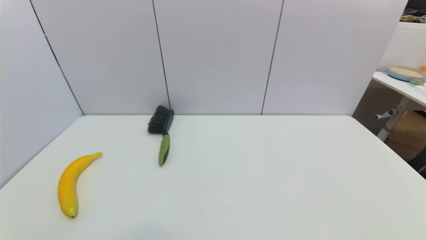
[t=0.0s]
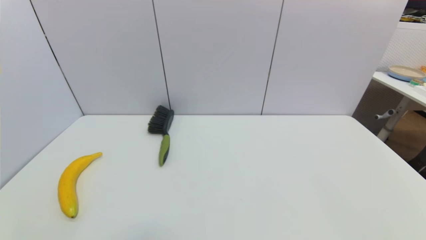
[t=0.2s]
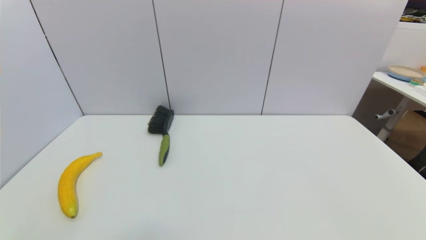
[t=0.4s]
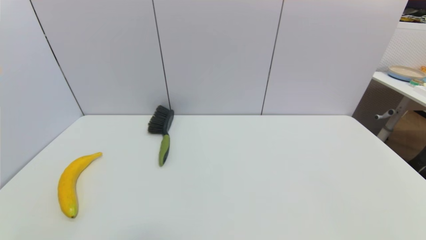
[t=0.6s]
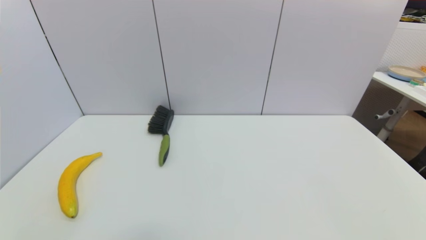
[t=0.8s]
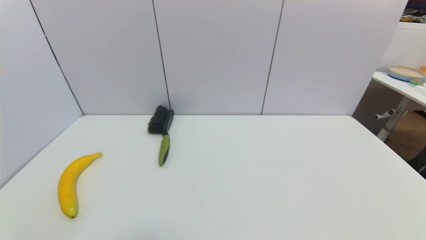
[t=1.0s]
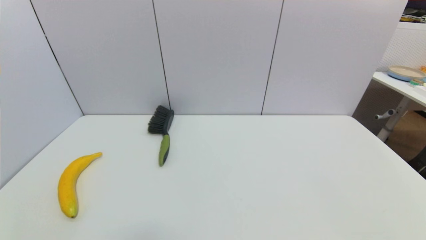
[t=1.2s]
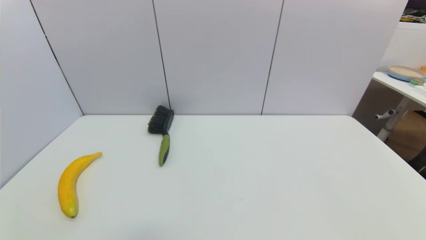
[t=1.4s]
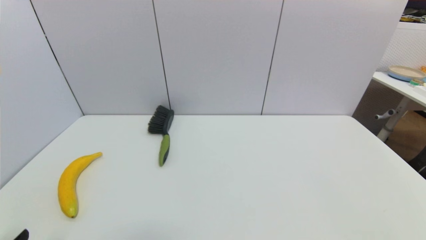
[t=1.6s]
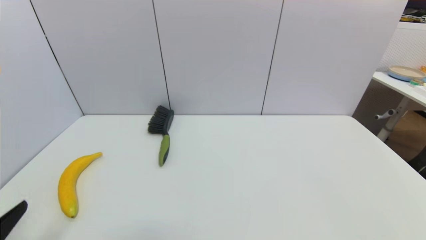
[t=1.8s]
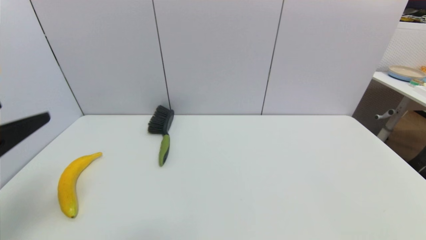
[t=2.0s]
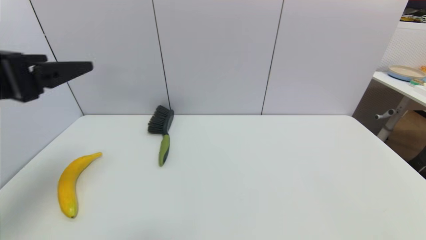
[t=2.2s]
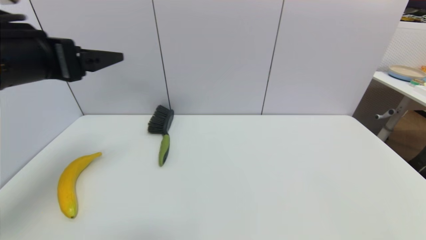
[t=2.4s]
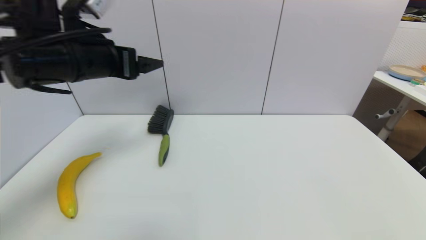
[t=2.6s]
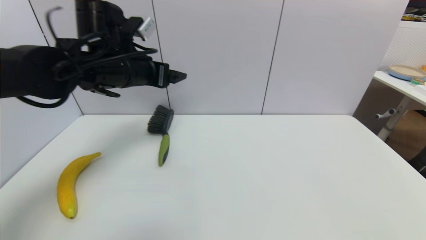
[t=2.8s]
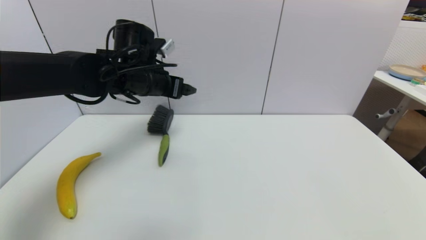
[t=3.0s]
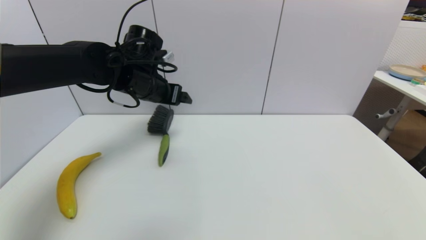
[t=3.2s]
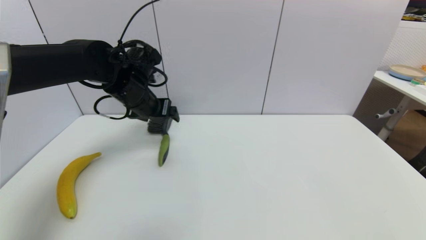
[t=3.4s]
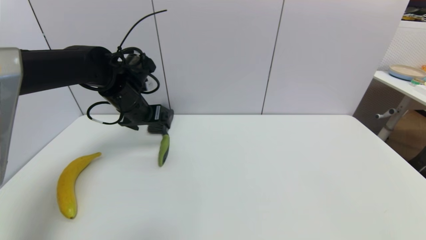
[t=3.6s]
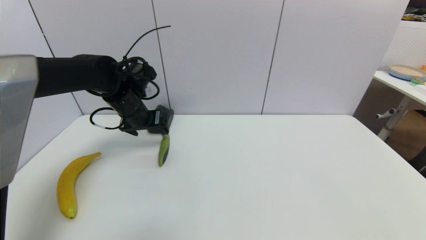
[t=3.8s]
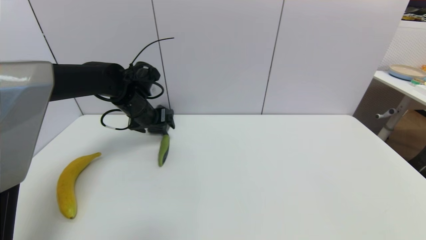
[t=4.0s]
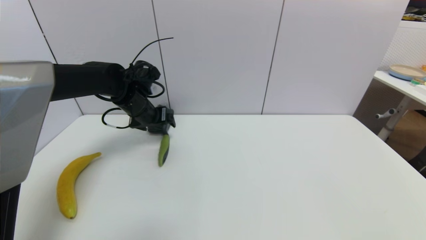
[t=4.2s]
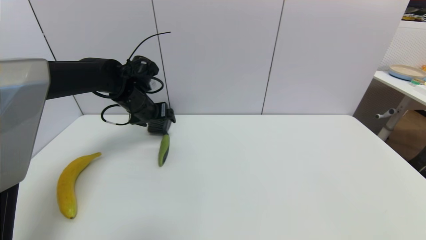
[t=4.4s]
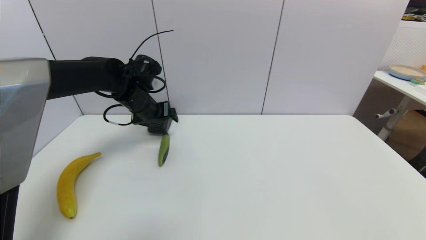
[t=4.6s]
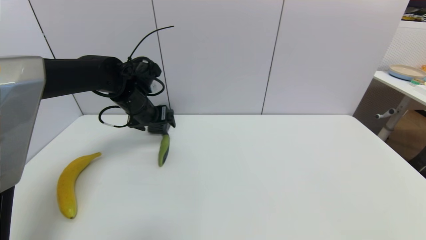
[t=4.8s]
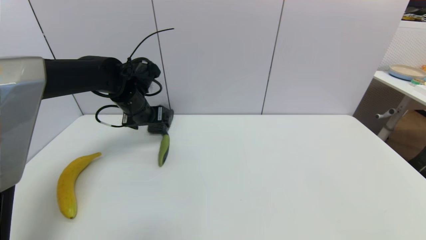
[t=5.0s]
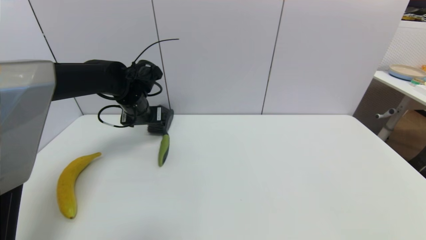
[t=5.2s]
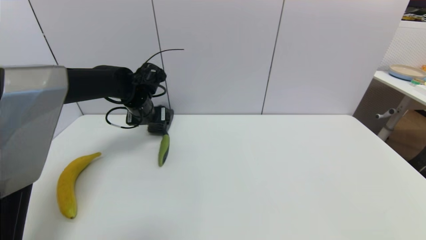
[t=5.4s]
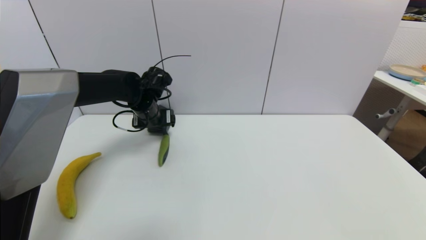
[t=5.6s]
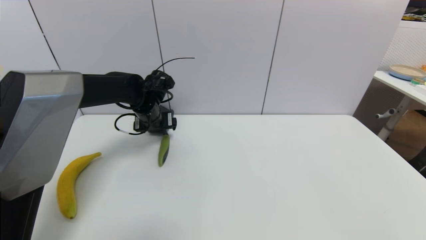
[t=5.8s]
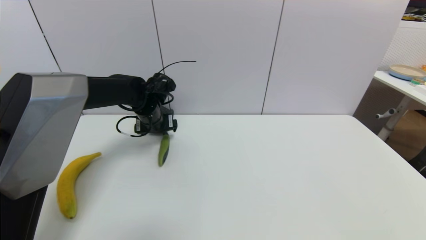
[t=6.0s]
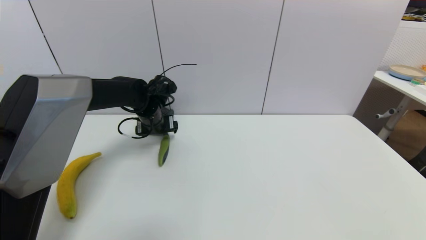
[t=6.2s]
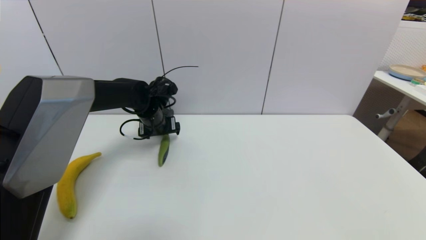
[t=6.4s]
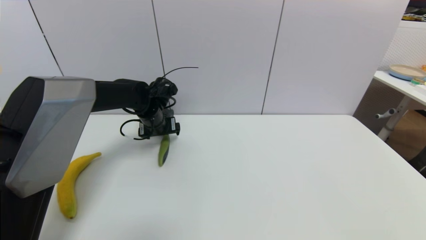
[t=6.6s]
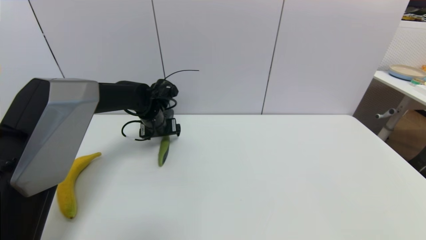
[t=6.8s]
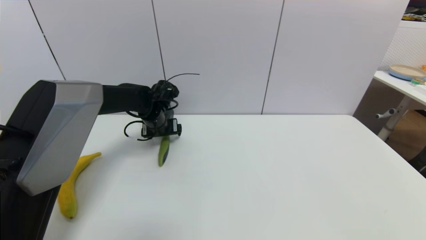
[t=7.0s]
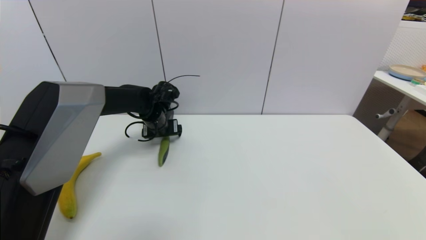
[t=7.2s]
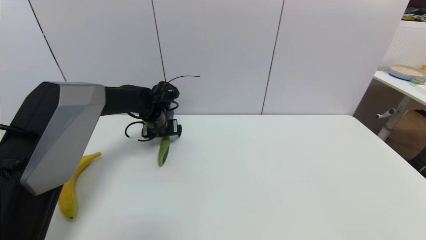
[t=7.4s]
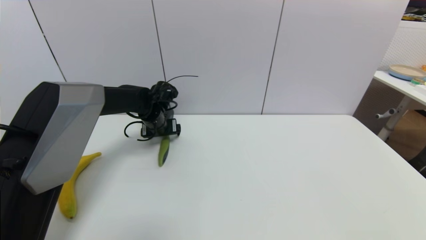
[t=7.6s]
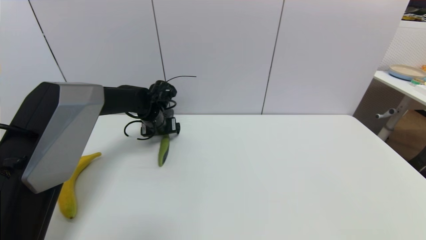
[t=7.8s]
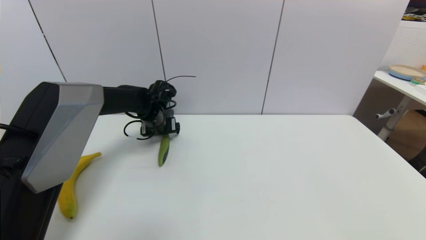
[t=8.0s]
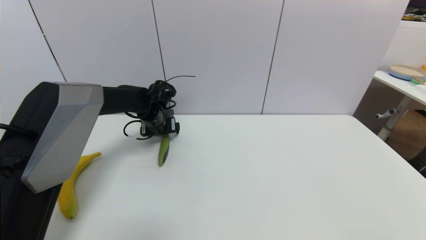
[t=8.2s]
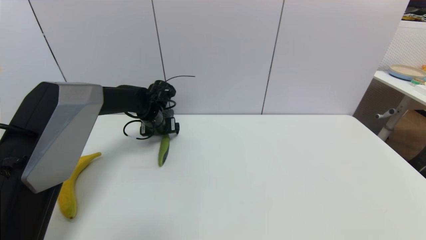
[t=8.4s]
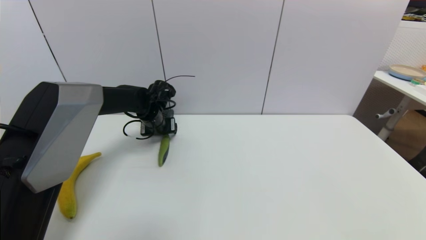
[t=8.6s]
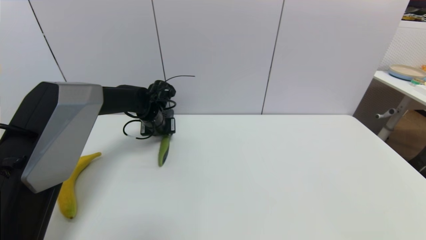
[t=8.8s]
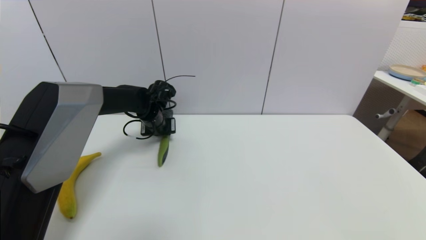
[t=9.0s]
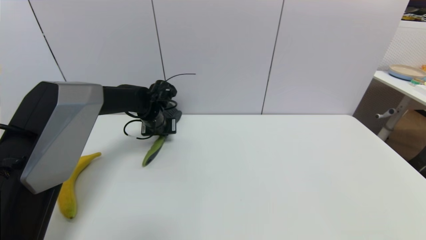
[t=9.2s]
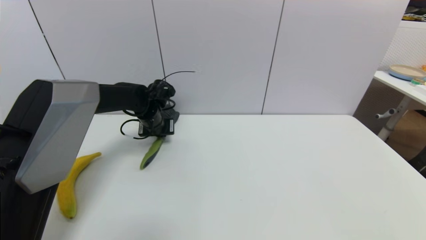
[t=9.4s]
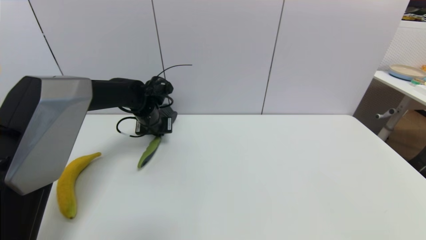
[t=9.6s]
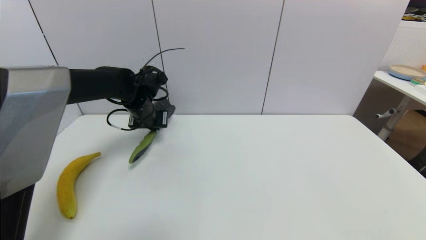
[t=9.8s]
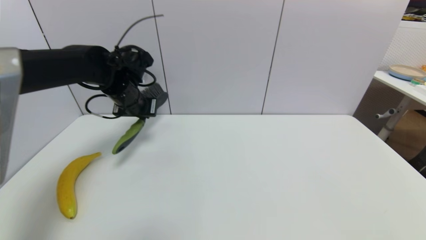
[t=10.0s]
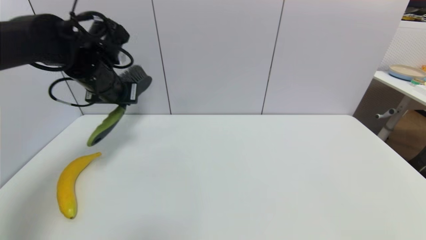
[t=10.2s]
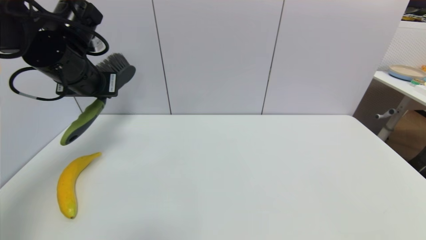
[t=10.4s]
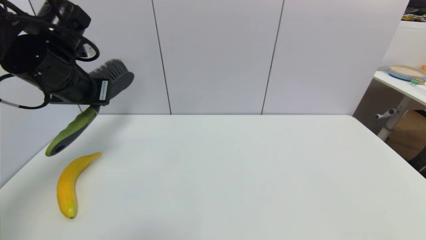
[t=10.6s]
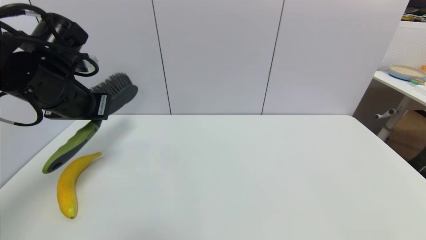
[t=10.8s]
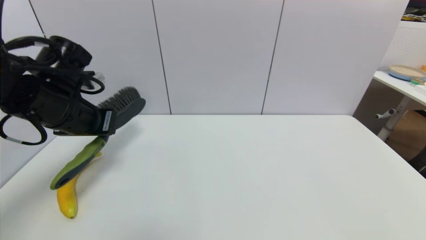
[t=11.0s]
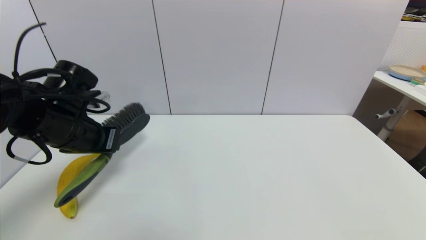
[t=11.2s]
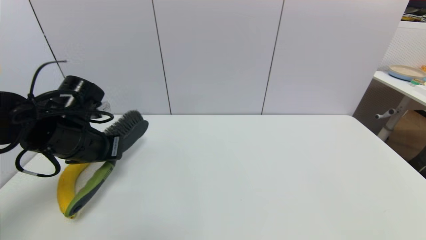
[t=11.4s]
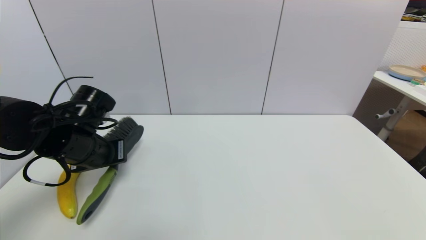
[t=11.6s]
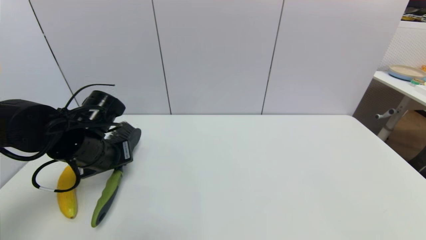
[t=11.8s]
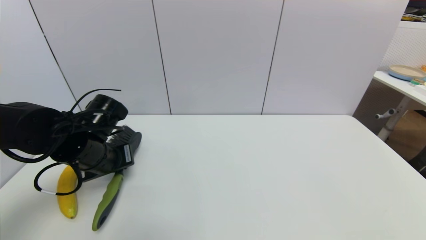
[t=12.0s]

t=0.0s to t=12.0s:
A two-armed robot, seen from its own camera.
Task of the whole recording: put the brush in the designated position.
Step, t=1.6s to t=9.2s: Grasp the brush with left gripper.
t=1.6s to t=3.0s: The left gripper goes some 40 cm forward and to the right.
t=3.0s to t=4.4s: The left gripper moves downward, roughly 5 cm.
t=4.4s to t=6.0s: The left gripper changes place by roughly 5 cm.
t=6.0s to t=7.6s: The grippers stay close to where they were, moving slightly.
t=7.6s to t=9.0s: The left gripper closes up.
t=9.0s to t=10.4s: The left gripper shifts about 25 cm upward, backward and to the left.
t=10.4s to t=12.0s: The left gripper shifts some 15 cm downward.

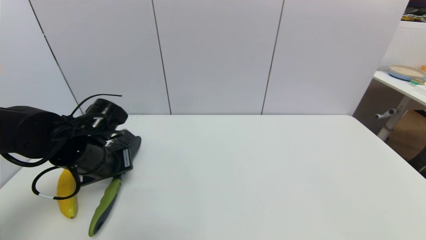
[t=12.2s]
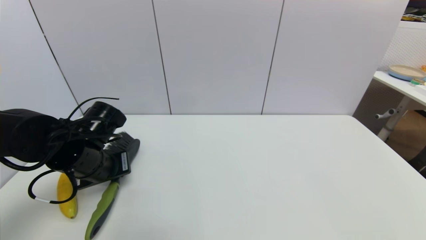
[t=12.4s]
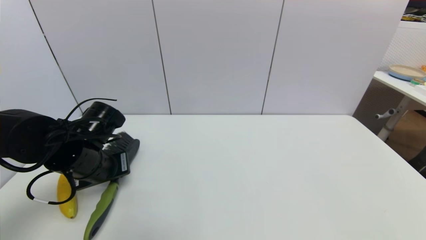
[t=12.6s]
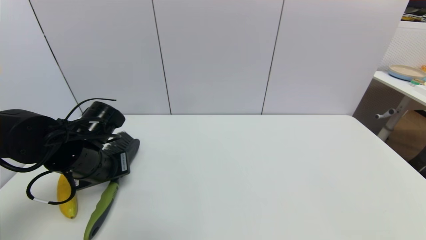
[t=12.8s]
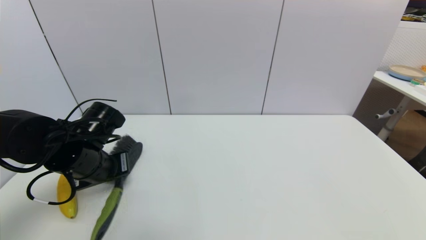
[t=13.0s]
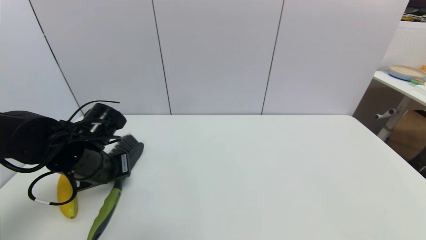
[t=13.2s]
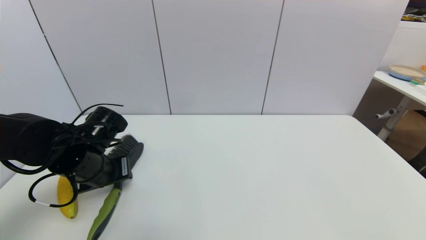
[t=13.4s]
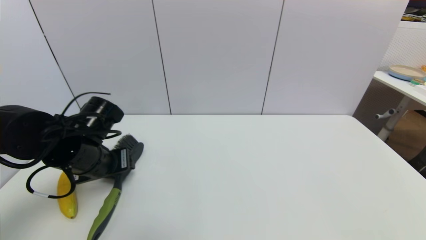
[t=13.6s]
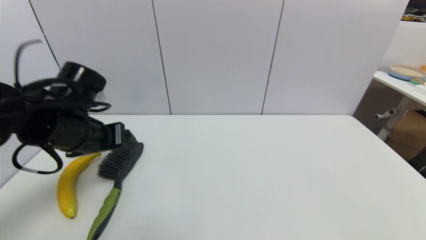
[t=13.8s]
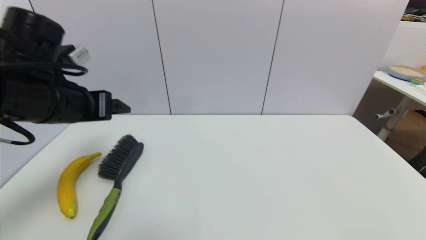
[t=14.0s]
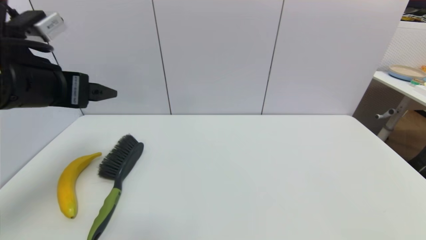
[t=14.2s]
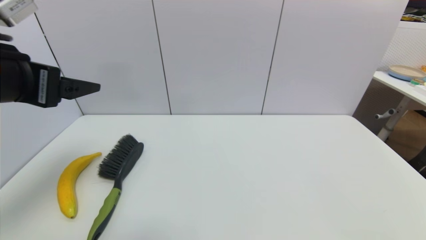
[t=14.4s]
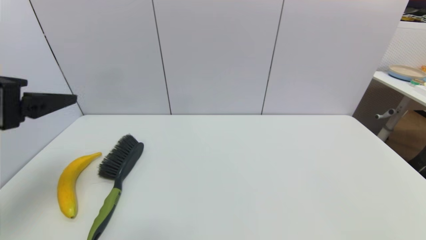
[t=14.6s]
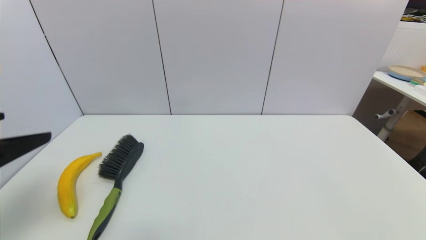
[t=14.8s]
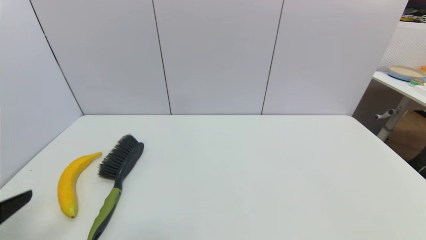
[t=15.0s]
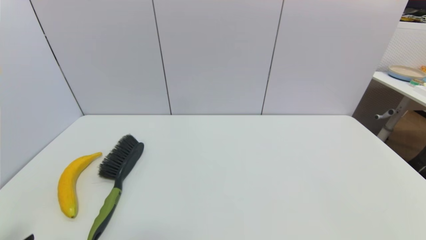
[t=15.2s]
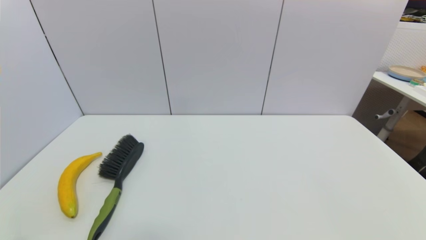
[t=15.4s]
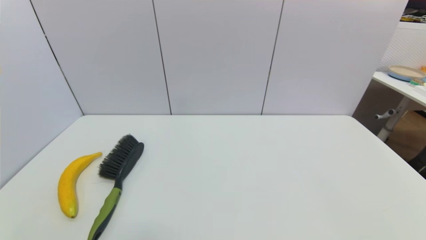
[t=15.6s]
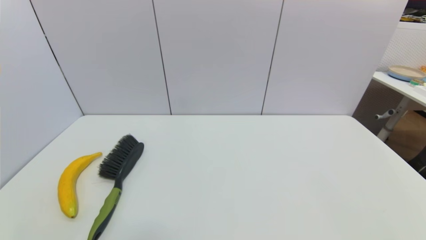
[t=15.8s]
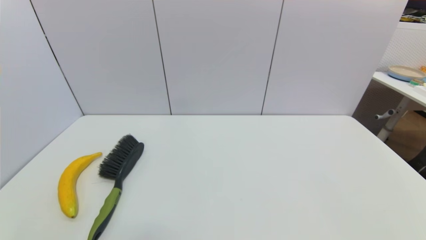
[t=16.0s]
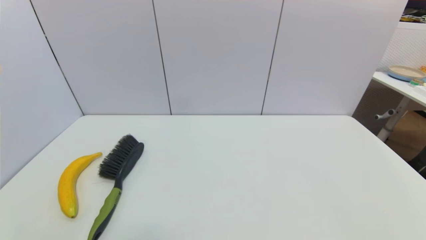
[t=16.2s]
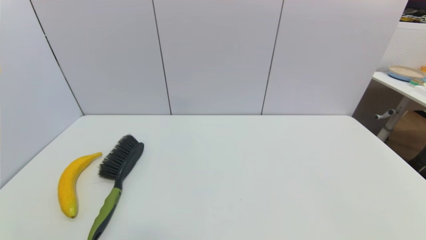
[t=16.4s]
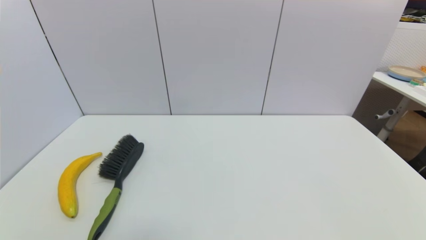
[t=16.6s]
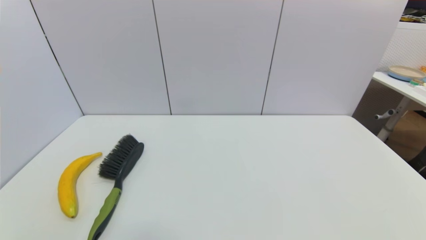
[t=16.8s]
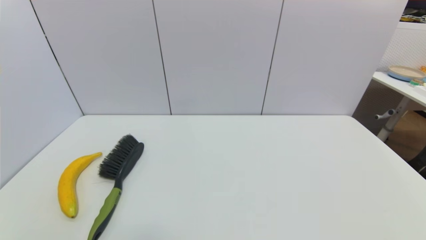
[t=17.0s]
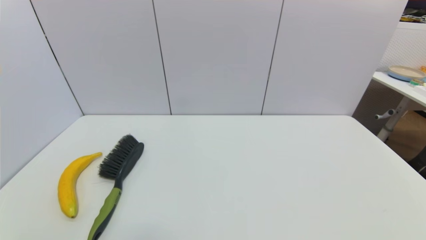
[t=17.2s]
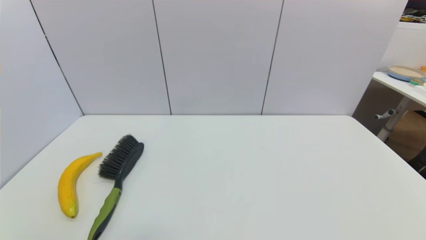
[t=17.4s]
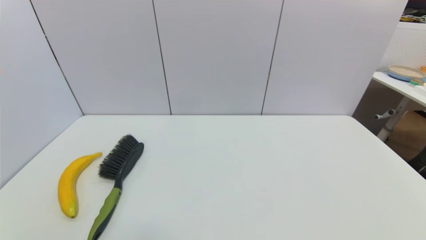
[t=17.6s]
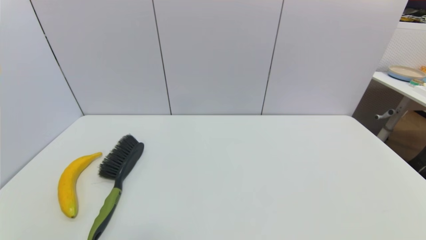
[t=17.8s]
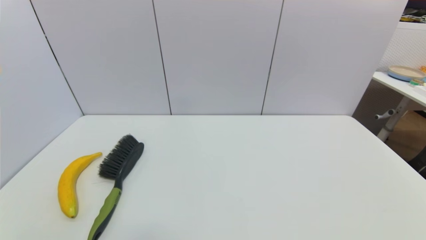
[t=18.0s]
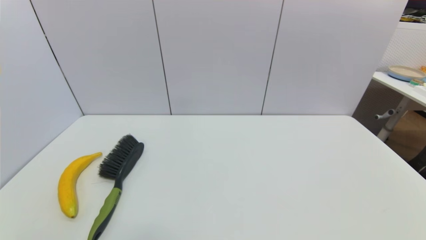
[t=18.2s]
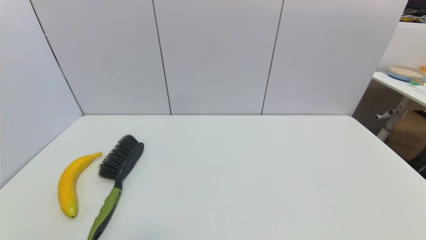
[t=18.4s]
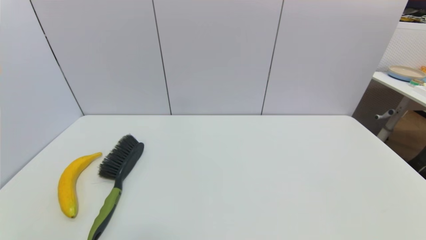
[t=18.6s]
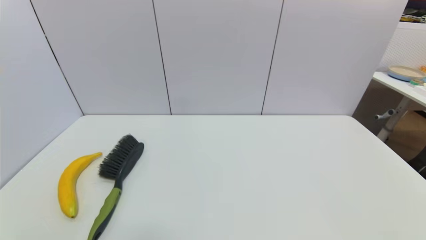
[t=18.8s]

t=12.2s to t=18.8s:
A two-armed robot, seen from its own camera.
Task of the whole recording: put the brush in the designated position.
t=12.2s to t=13.8s: The left gripper travels upward by some 10 cm, and opens up.
t=13.8s to t=15.4s: The left gripper heads backward and downward, covering roughly 30 cm.
t=17.2s to t=18.8s: The two grippers keep their place.
